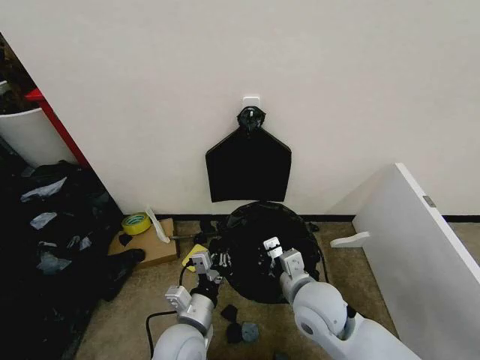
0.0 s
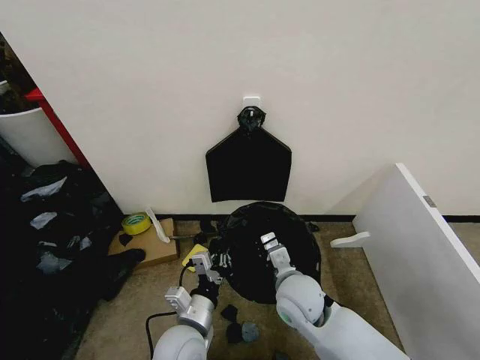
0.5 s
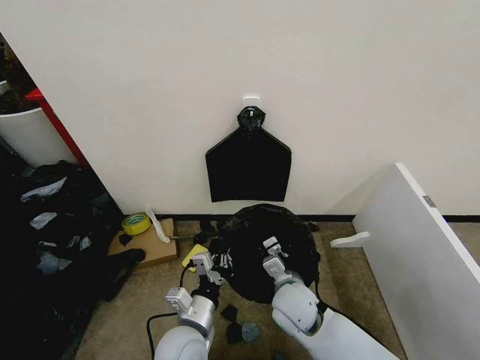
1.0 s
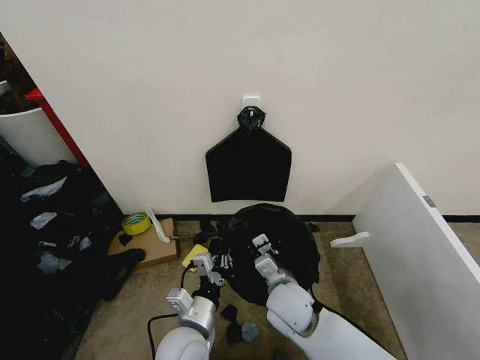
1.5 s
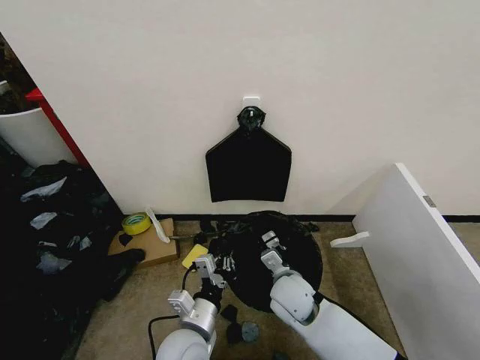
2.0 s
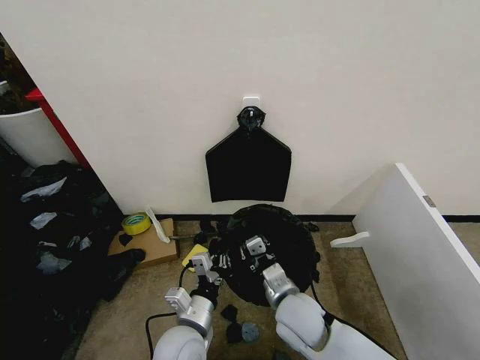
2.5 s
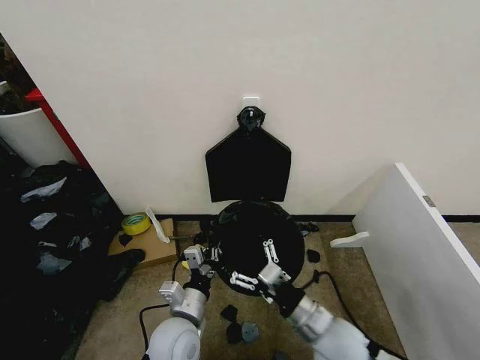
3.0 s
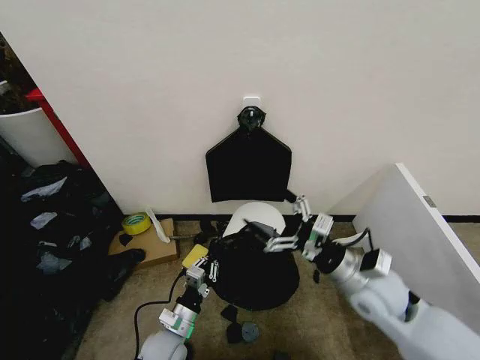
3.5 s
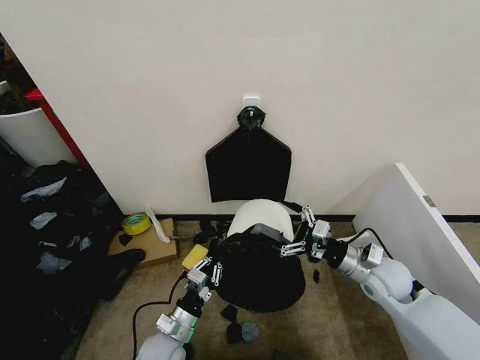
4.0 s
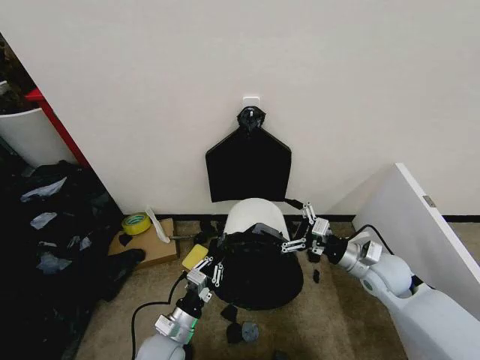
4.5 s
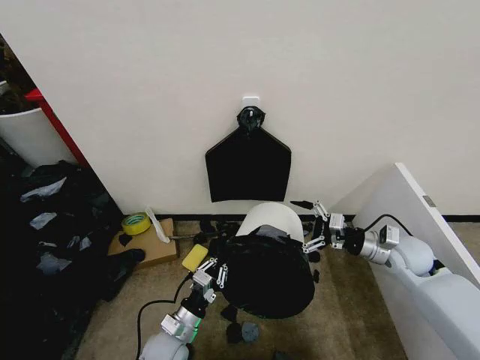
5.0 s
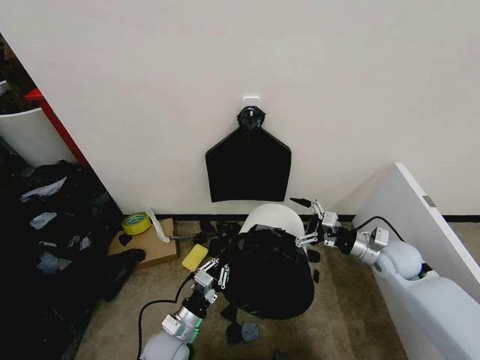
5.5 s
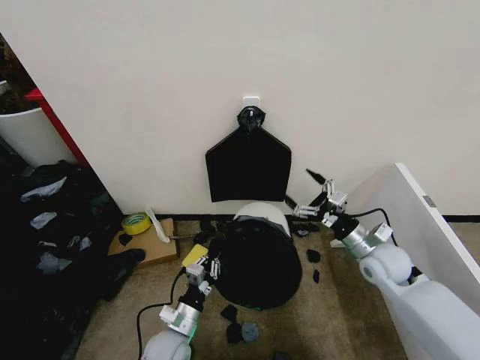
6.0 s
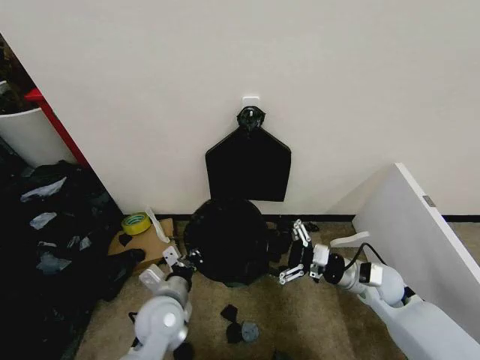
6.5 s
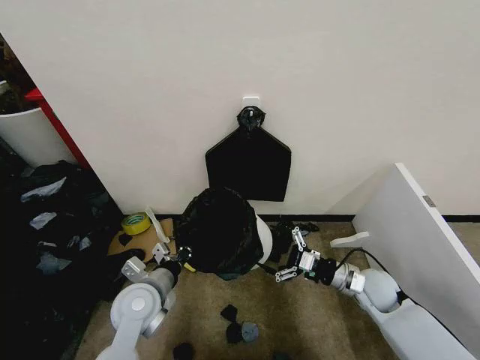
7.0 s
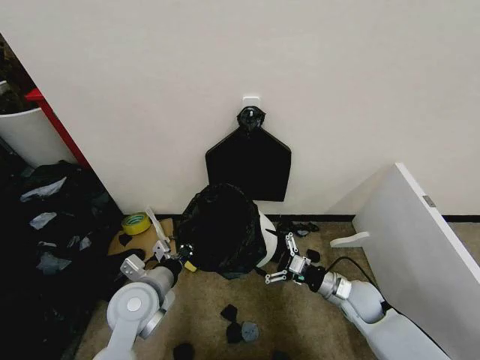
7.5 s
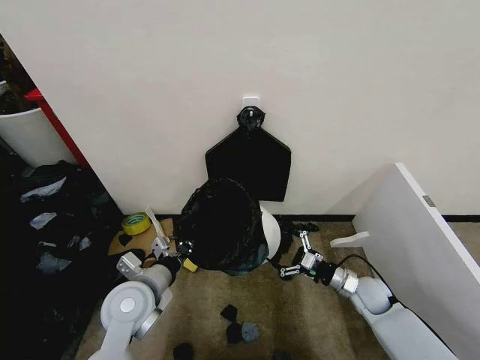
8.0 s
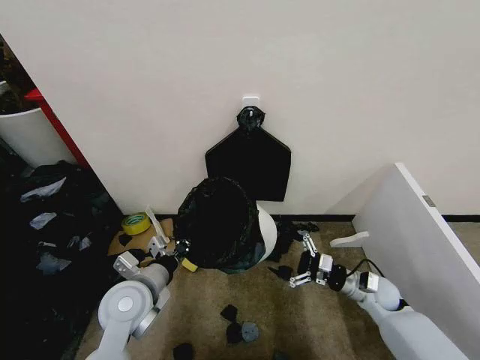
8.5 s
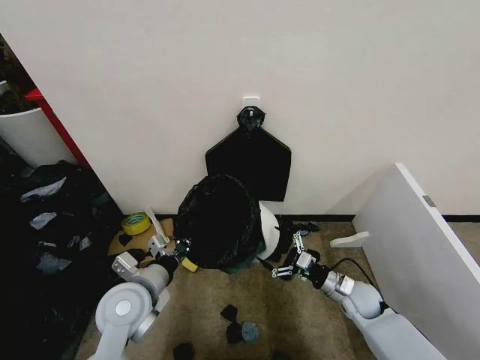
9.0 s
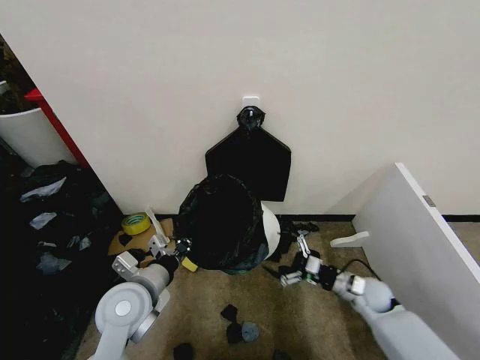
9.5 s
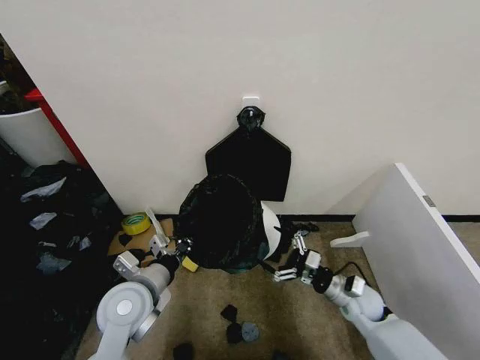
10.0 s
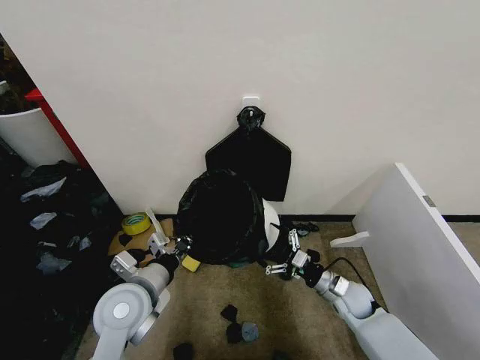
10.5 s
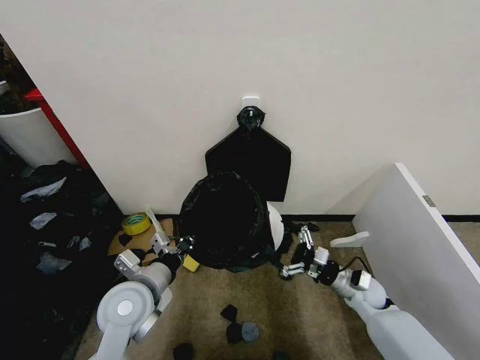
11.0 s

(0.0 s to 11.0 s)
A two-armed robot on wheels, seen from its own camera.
Task of the whole recording: Place the garbage bag over the trash bin.
0.0 s - 2.0 s: The right gripper shifts some 5 cm downward.
2.0 s - 3.5 s: The right gripper is displaced to the right and upward by about 15 cm, and opens its fingers, while the left gripper travels downward and to the left by about 10 cm.
3.5 s - 5.5 s: The right gripper moves to the right, forward and downward, approximately 15 cm.
5.5 s - 7.5 s: The left gripper travels upward by approximately 15 cm. The right gripper is displaced downward, to the left and backward by about 15 cm.
9.0 s - 11.0 s: The grippers make only small movements.

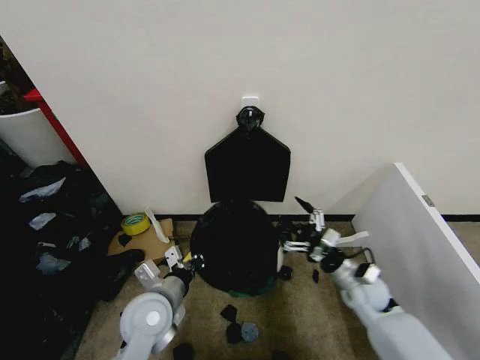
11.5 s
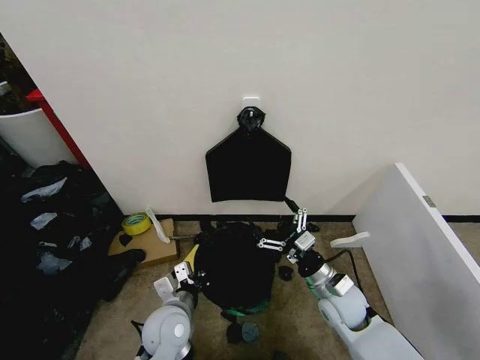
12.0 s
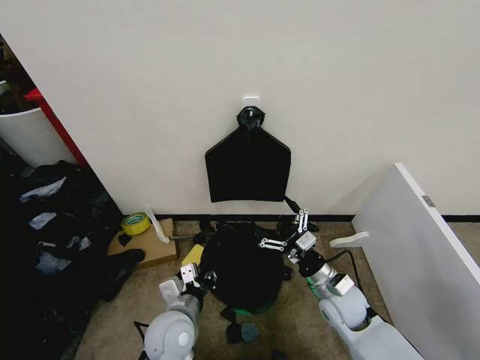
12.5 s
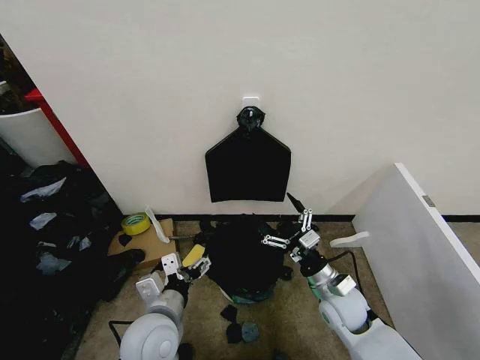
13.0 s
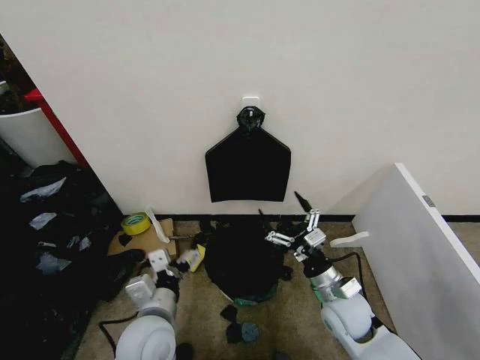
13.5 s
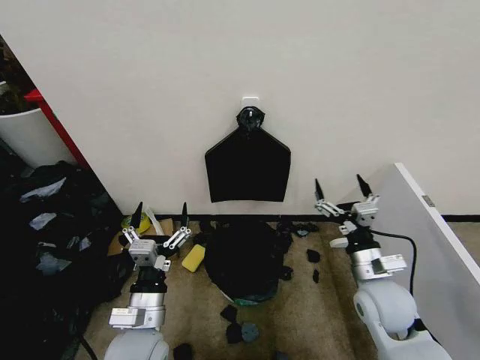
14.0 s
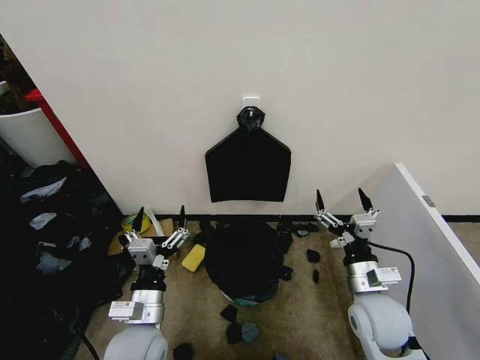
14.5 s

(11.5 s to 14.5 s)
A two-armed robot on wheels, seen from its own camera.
Task of the whole recording: Place the garbage bag over the trash bin.
11.5 s - 13.0 s: The left gripper opens up; the right gripper goes about 10 cm to the left.
13.0 s - 14.5 s: The right gripper travels upward by roughly 5 cm.

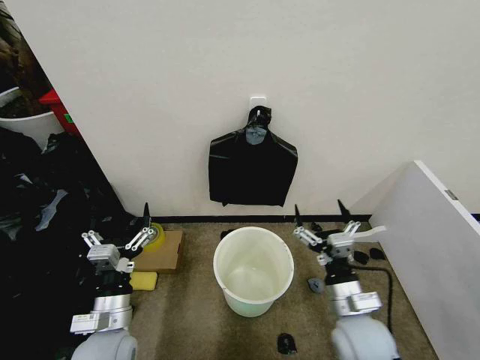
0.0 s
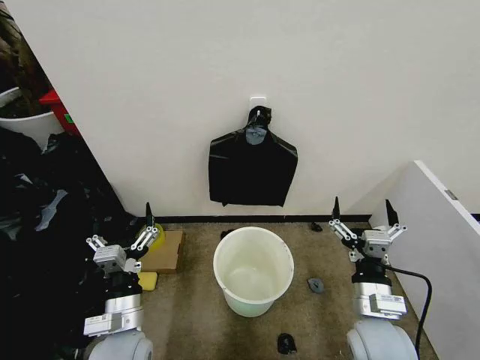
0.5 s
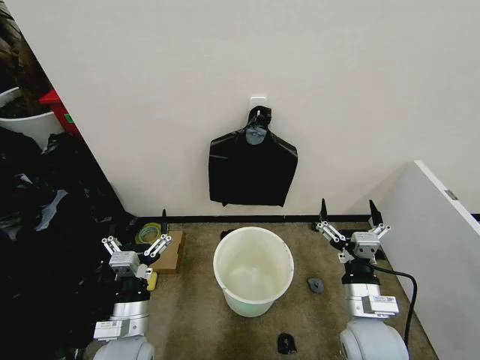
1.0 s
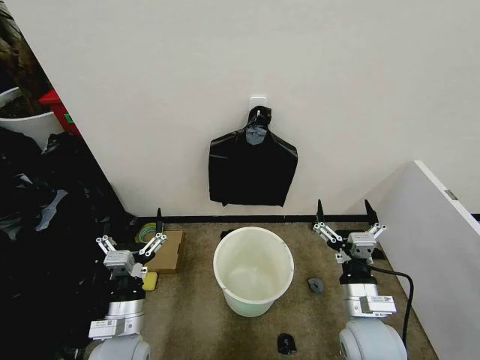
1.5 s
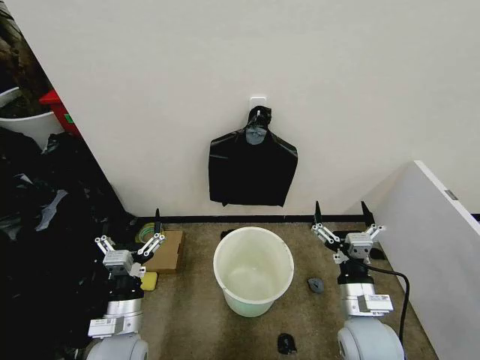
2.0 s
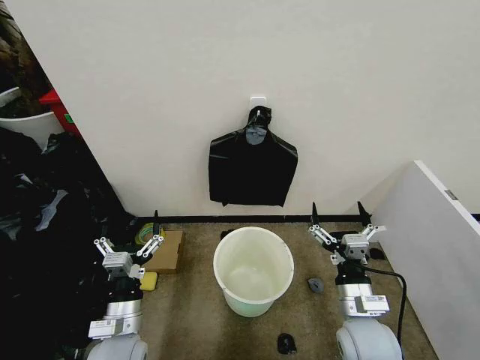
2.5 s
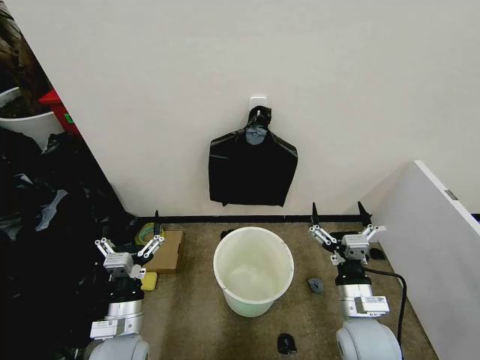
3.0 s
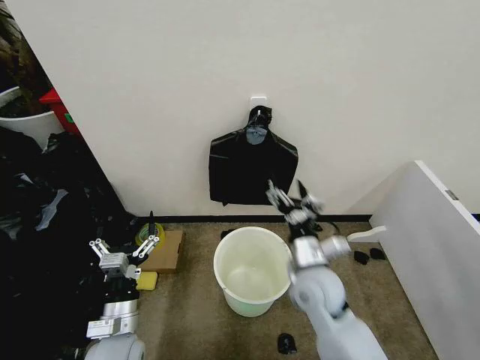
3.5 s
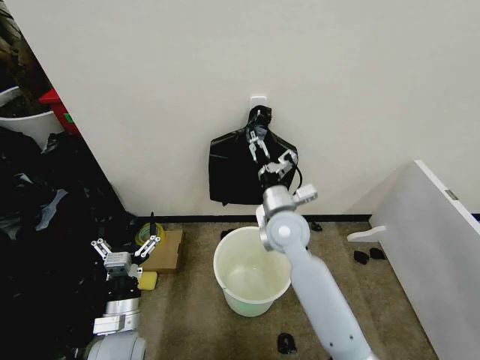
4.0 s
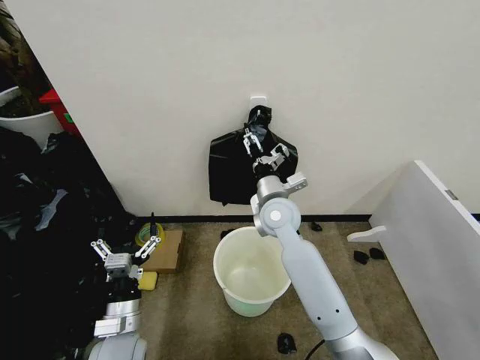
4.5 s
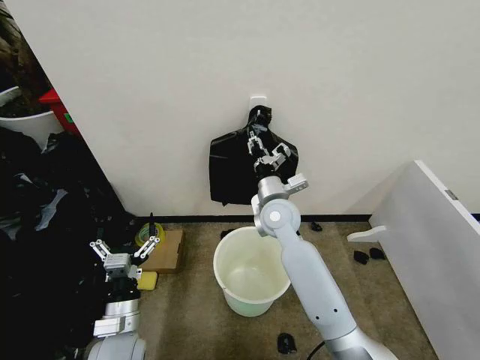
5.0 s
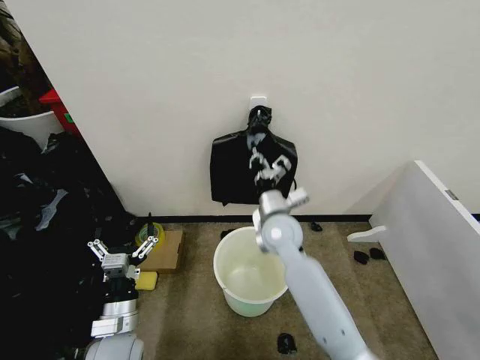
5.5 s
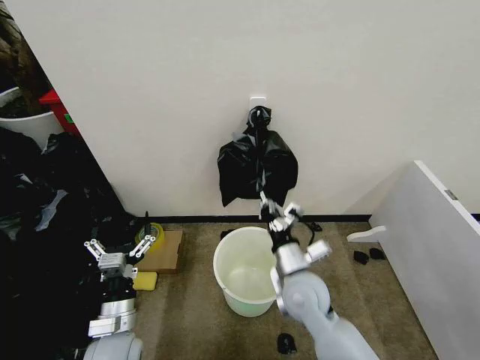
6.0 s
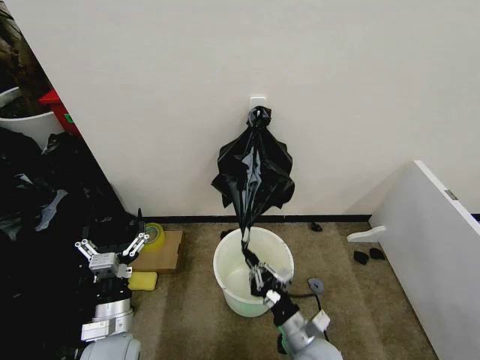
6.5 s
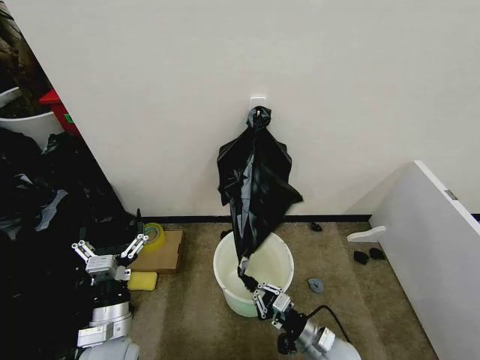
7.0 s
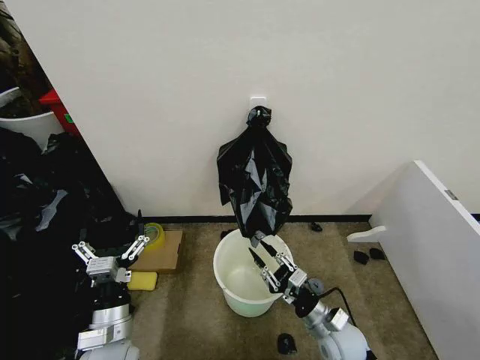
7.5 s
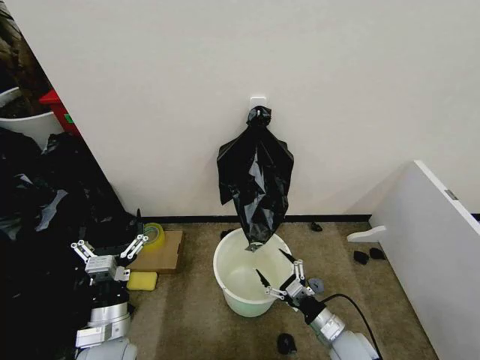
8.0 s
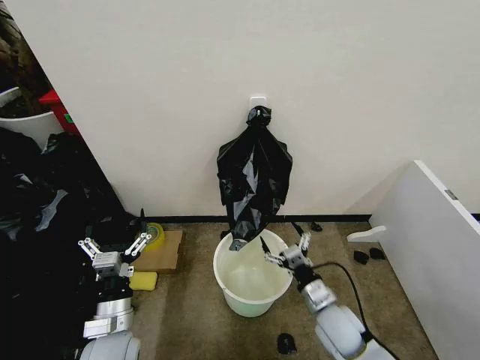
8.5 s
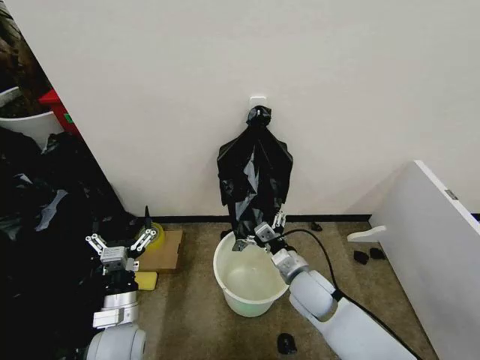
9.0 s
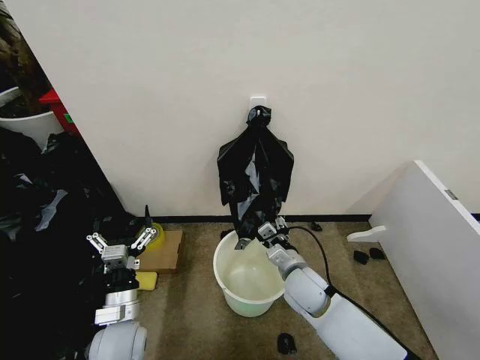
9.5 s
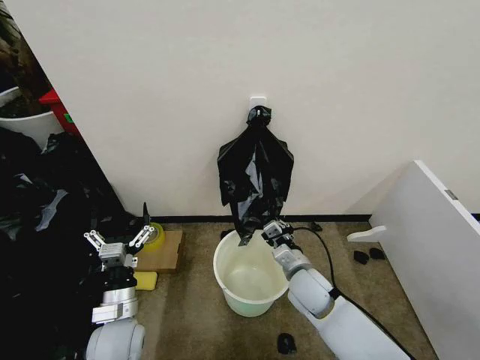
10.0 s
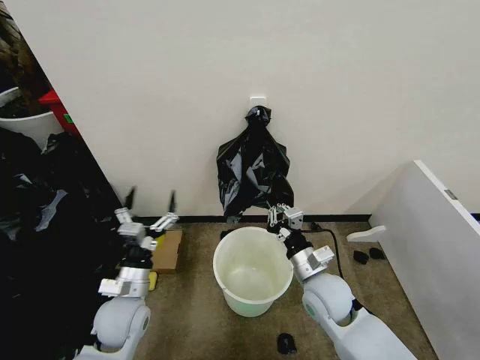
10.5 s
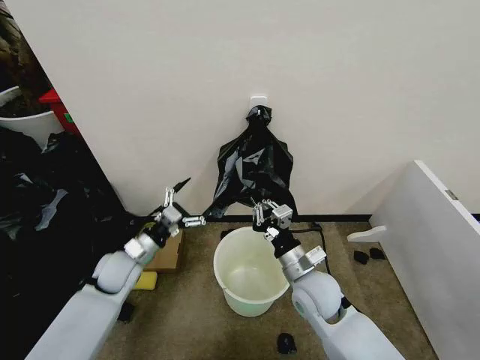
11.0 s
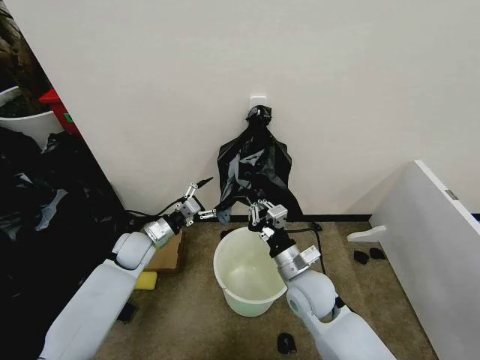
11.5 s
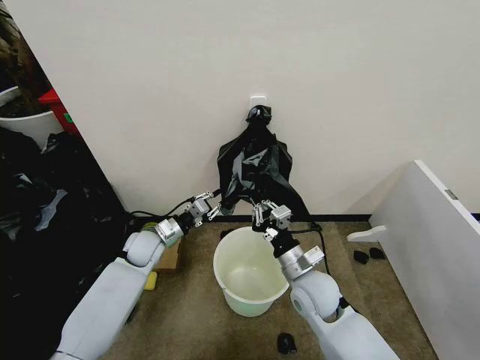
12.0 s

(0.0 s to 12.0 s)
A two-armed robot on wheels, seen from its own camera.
Task of the whole recording: Place the garbage bag over the trash bin.
2.0 s - 4.0 s: The right gripper moves forward, to the left and upward, some 25 cm.
4.0 s - 6.0 s: The right gripper travels backward and downward by some 15 cm, and closes its fingers.
6.0 s - 8.0 s: The right gripper shifts about 20 cm downward, to the right and backward, and opens.
8.0 s - 10.0 s: The right gripper goes roughly 20 cm forward, upward and to the left, and closes.
10.0 s - 12.0 s: The left gripper moves forward, about 20 cm, and closes.
